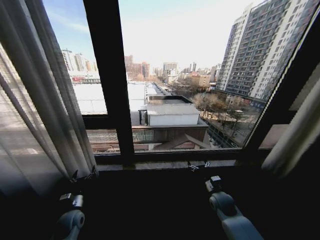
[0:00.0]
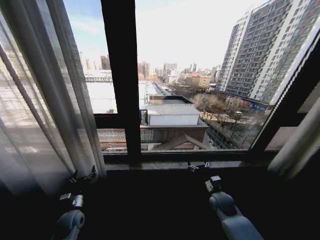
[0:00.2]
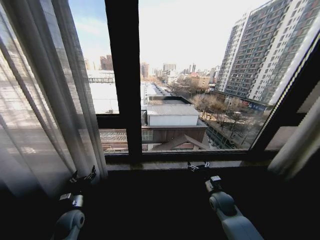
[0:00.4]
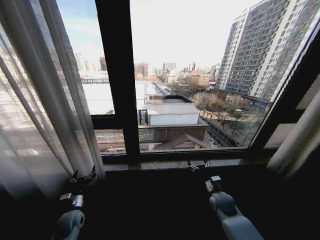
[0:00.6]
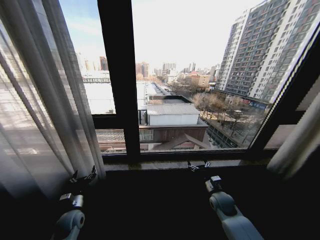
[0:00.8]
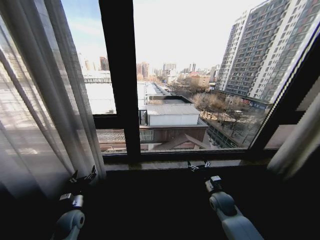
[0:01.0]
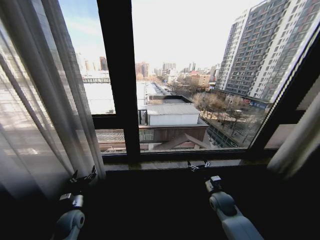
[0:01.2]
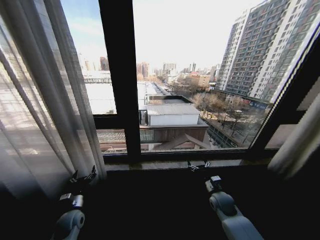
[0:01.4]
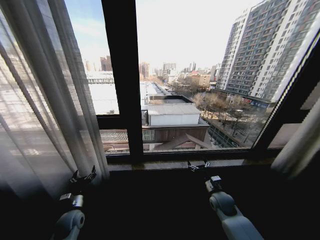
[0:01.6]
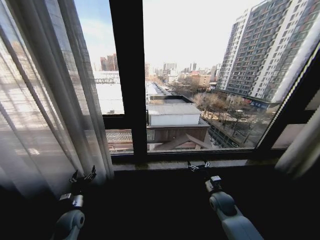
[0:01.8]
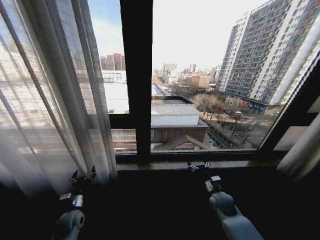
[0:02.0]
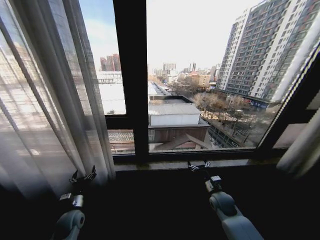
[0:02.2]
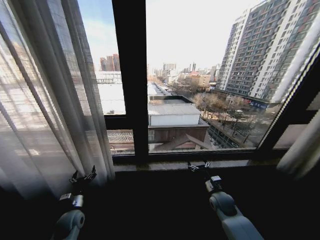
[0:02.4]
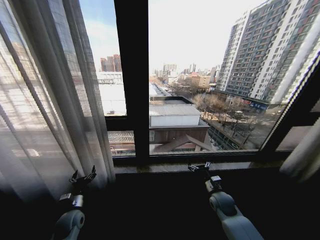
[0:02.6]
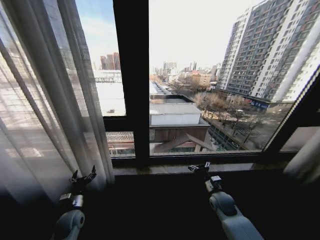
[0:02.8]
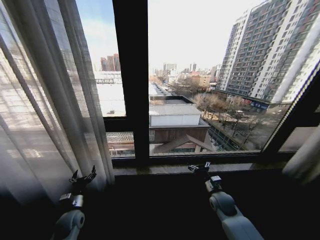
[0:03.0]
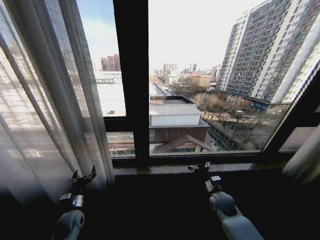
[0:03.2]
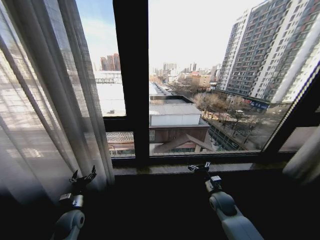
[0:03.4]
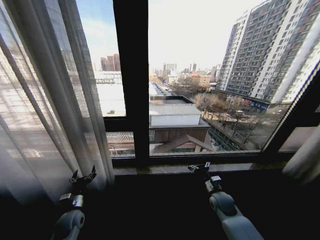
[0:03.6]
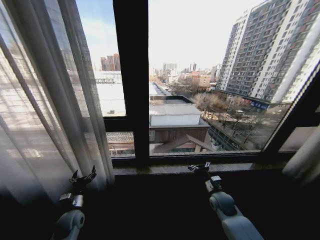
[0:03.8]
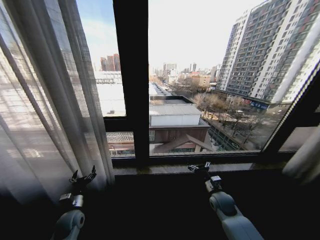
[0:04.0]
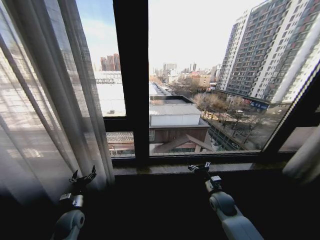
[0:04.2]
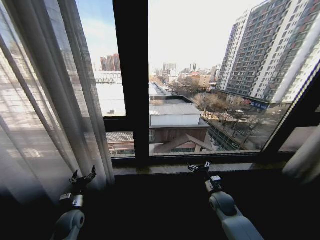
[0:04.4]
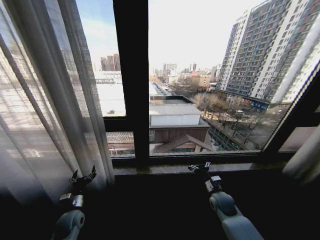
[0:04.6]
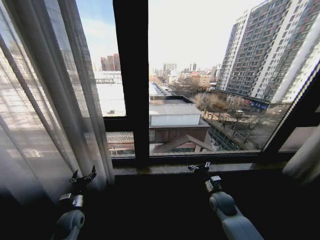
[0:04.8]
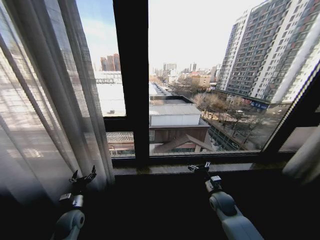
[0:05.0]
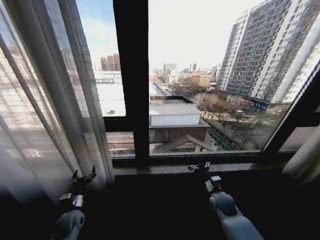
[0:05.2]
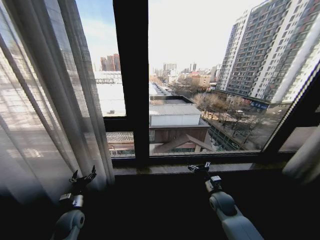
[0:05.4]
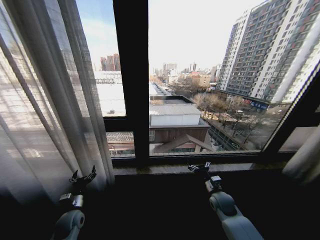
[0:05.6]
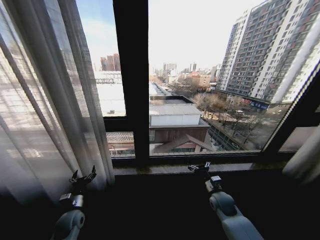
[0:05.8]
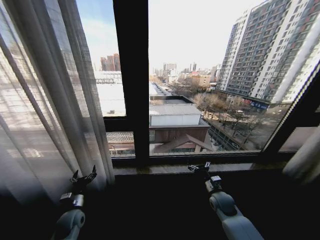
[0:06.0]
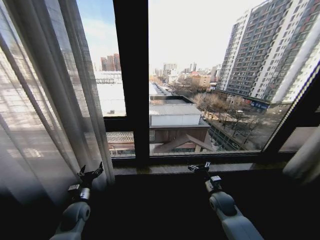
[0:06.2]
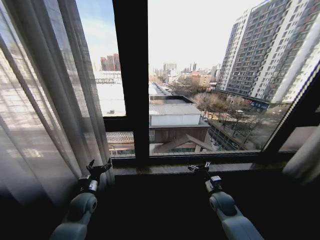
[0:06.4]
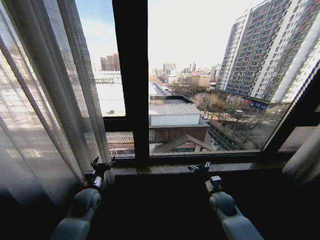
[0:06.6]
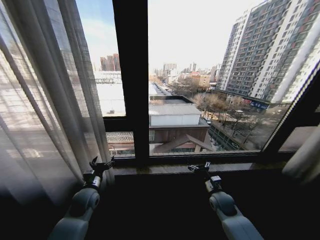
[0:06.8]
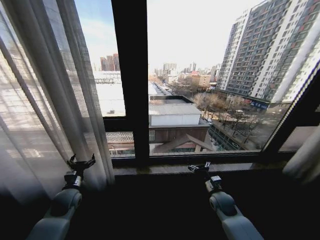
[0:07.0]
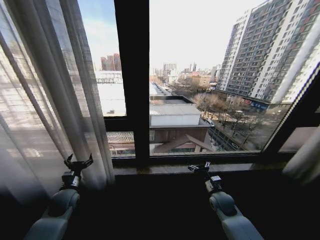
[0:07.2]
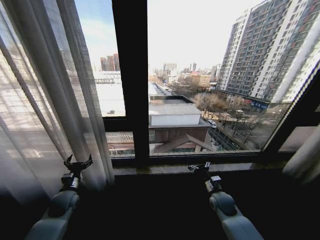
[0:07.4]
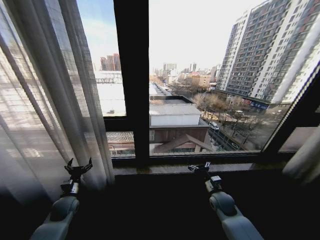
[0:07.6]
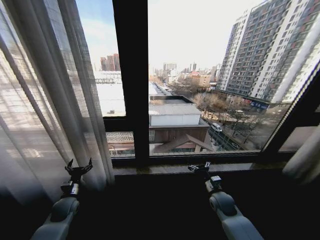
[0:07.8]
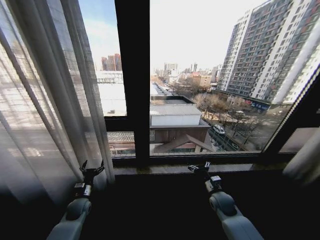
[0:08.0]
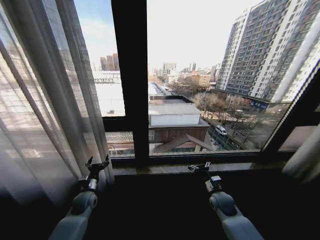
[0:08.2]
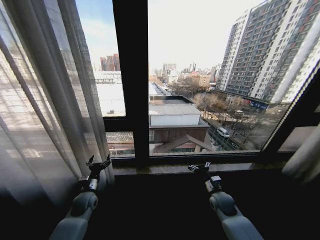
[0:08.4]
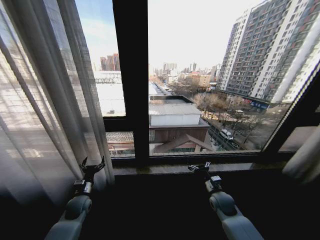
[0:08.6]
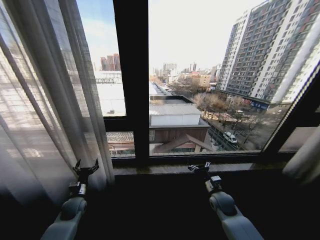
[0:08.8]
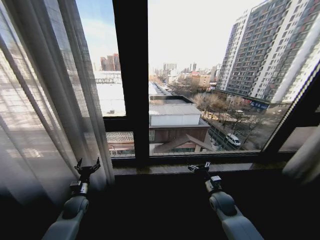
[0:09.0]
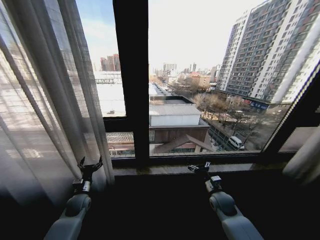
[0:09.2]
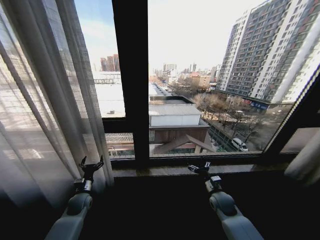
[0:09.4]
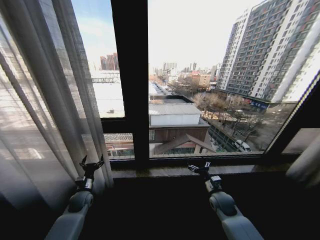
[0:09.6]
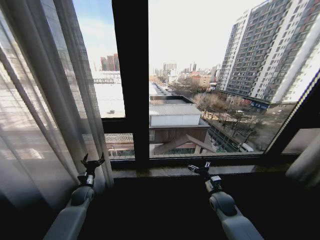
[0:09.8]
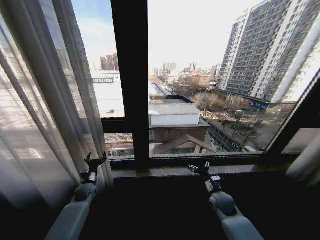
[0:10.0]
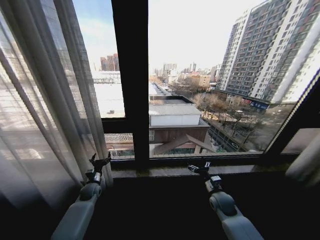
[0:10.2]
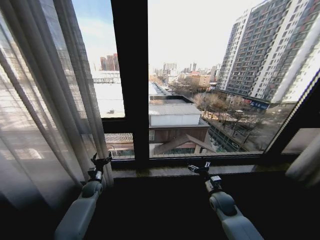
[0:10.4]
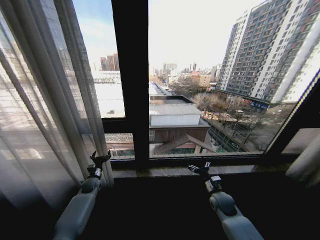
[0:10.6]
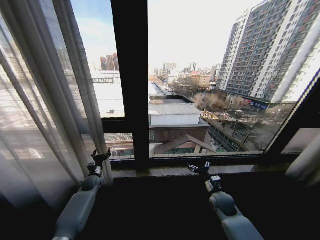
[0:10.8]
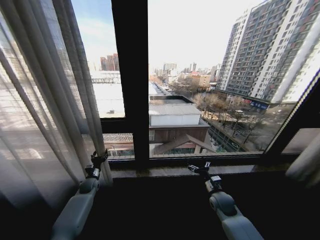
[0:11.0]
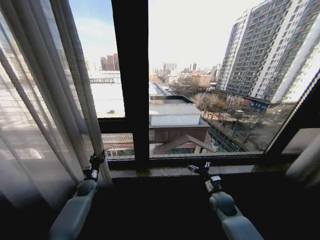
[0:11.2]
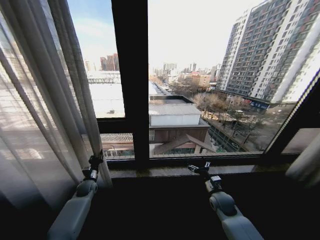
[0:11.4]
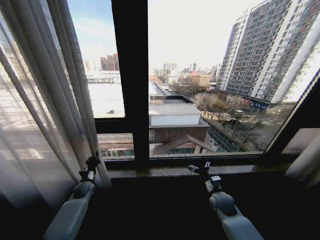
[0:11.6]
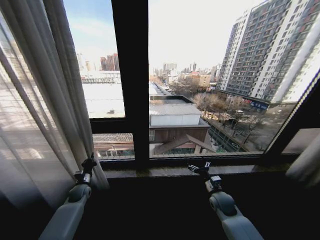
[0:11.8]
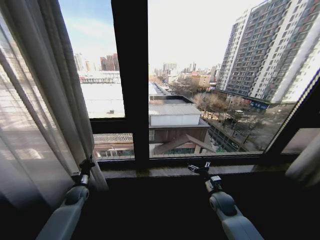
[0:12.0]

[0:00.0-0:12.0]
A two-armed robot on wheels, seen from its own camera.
Task of the whole recording: Open the curtains by pulling them apart, changing their state from closed to fully open.
0:03.0 to 0:06.0: Both grippers stay about where they are.
0:06.0 to 0:07.6: The left gripper moves forward, about 5 cm.
0:09.0 to 0:10.4: The left gripper moves forward, about 10 cm.
0:10.4 to 0:12.0: The left gripper shifts roughly 5 cm to the left, and closes up.

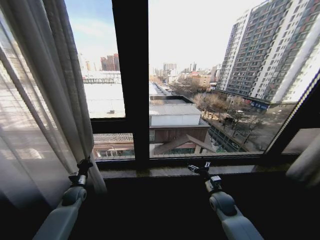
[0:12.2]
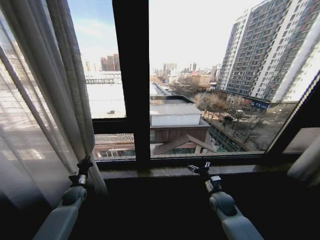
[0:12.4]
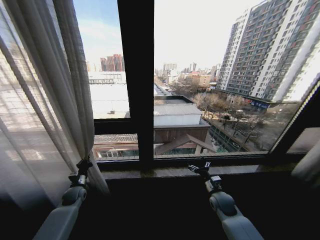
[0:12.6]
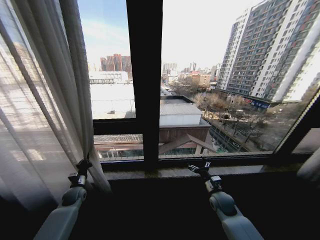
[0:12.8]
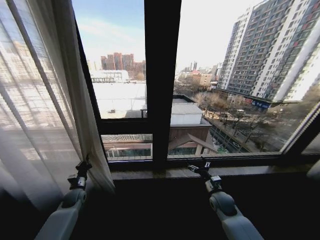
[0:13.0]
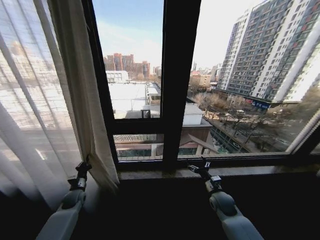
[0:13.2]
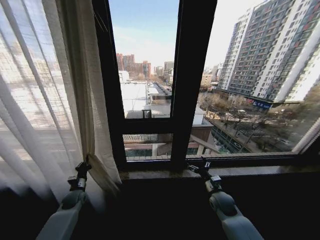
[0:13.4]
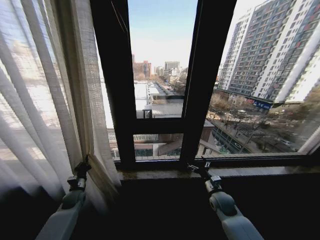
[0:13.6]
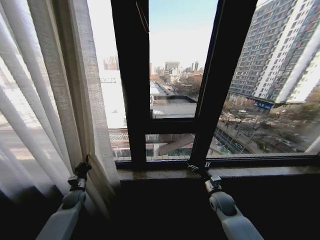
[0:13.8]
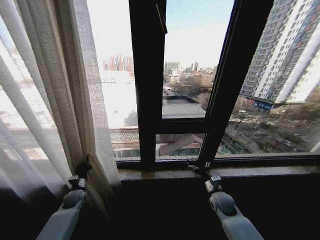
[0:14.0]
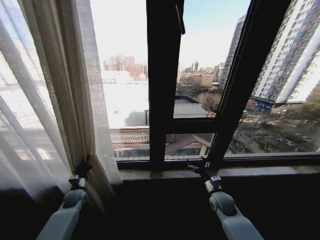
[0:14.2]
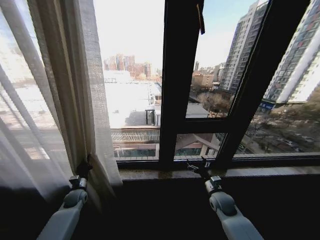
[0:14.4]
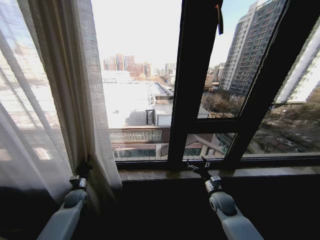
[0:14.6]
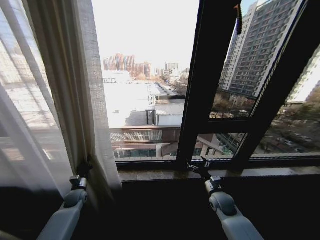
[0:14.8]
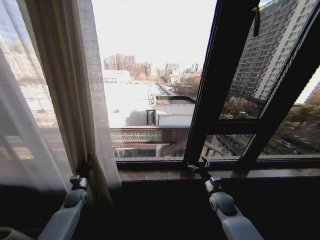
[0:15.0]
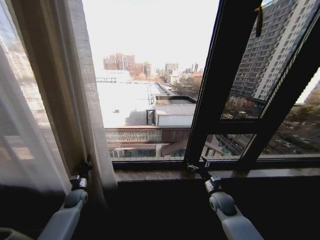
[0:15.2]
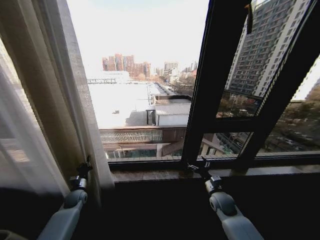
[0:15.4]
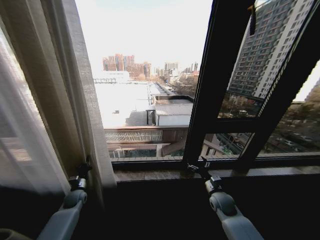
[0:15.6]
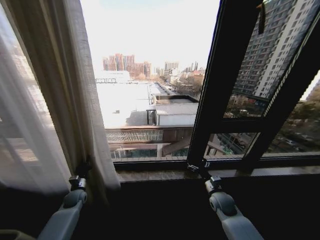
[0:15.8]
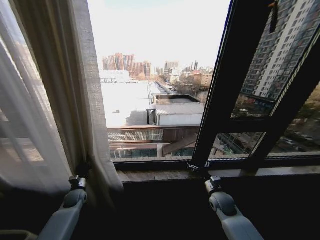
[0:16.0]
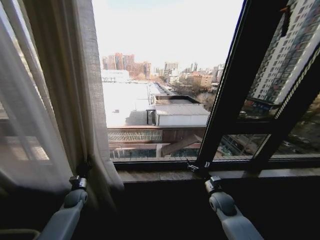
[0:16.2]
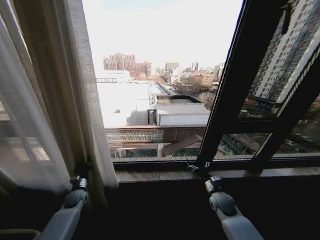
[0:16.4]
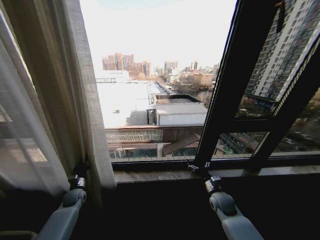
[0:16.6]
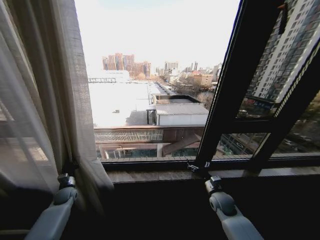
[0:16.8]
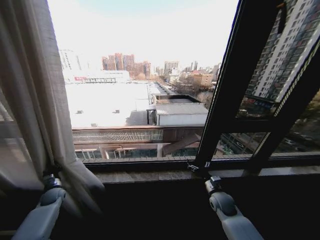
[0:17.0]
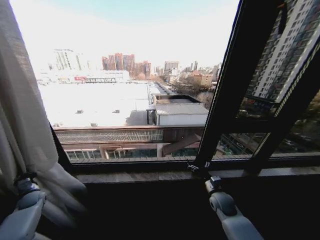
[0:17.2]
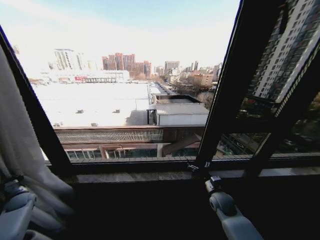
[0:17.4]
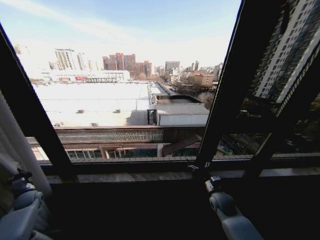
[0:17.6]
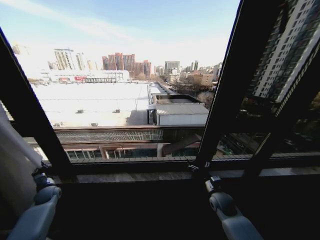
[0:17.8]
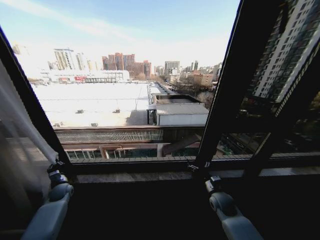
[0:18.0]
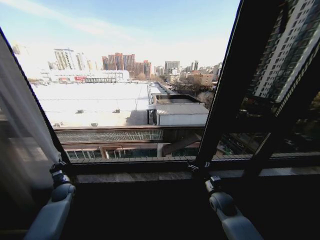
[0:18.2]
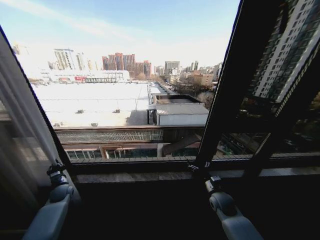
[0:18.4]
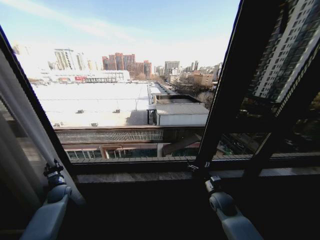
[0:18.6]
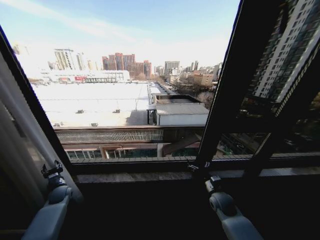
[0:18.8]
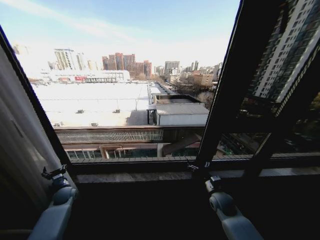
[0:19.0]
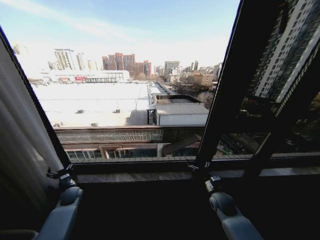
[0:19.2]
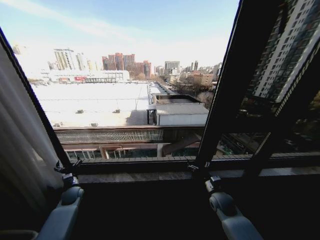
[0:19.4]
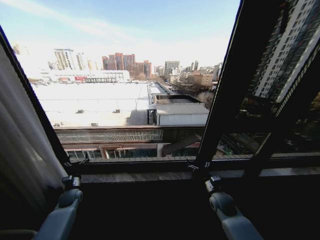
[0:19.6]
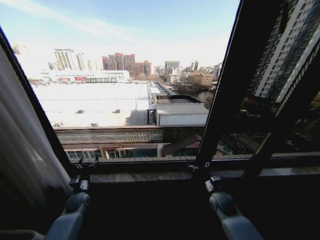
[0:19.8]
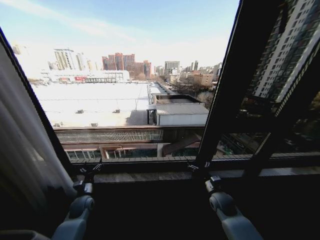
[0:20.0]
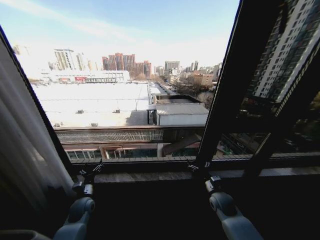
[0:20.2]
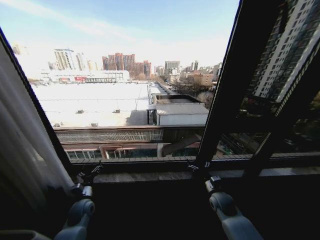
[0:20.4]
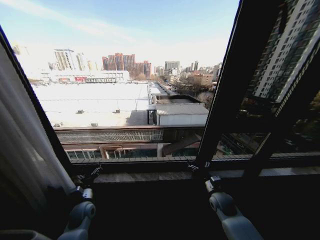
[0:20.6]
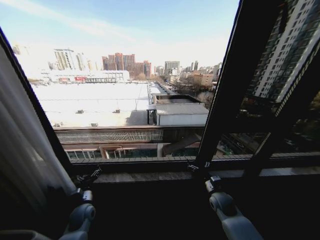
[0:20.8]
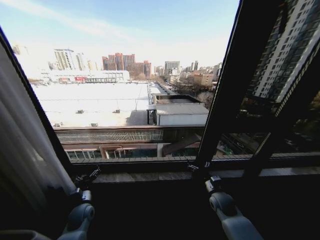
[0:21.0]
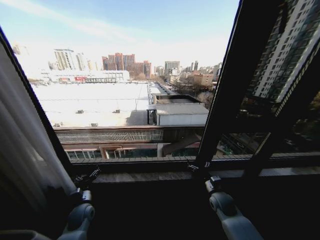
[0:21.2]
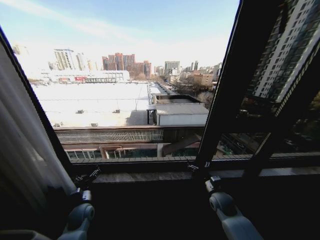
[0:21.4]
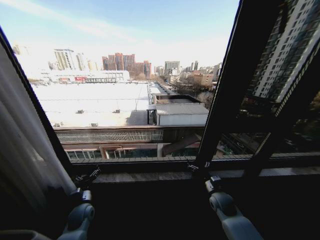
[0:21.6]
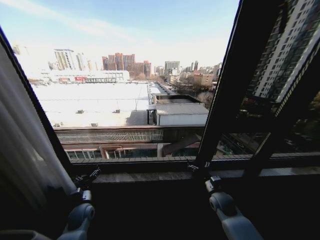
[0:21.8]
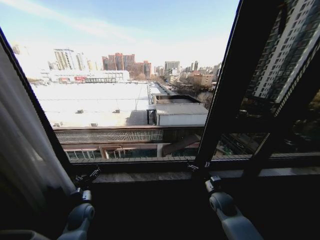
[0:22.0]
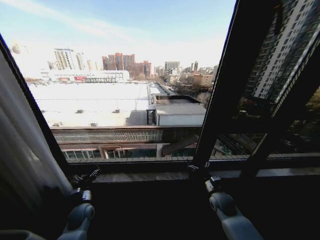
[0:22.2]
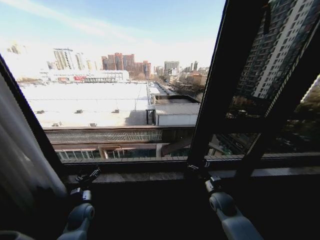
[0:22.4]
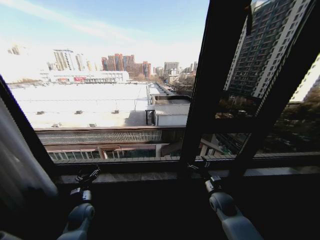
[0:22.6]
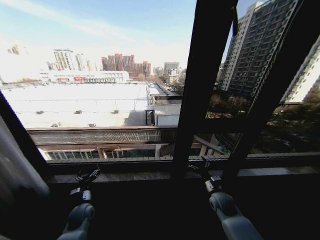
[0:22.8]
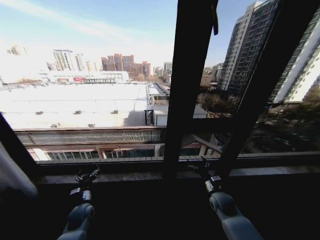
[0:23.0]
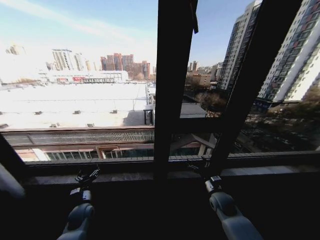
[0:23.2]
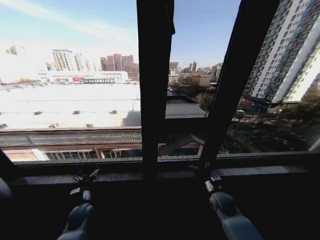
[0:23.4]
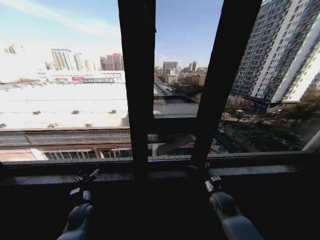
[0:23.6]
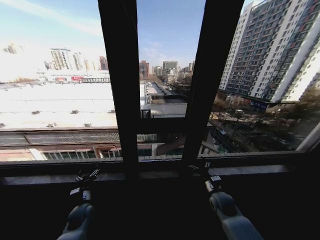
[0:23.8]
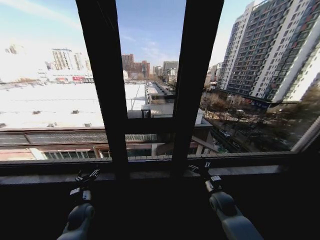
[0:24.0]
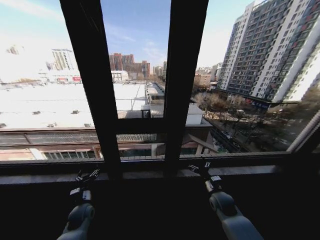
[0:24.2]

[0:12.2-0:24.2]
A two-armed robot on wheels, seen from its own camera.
Task of the whole recording: Open the curtains by pulling them apart, changing their state from closed to fully open.
0:16.6 to 0:18.2: The left gripper goes to the left and returns, some 25 cm each way.
0:18.2 to 0:19.8: The left gripper heads to the right, covering about 10 cm, and opens its fingers.
0:19.8 to 0:21.2: The left gripper moves backward and to the right, roughly 10 cm.
